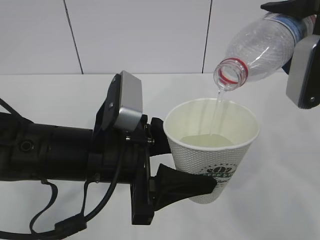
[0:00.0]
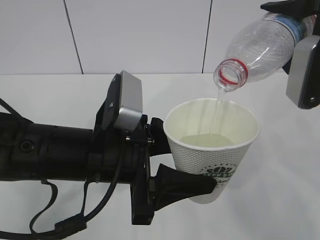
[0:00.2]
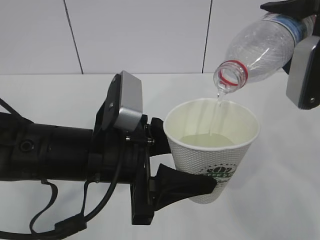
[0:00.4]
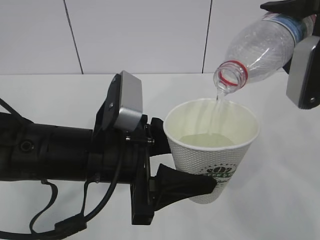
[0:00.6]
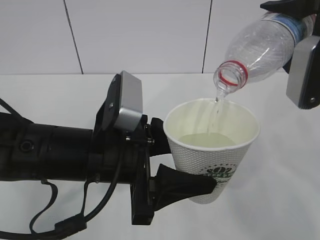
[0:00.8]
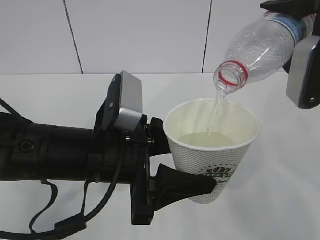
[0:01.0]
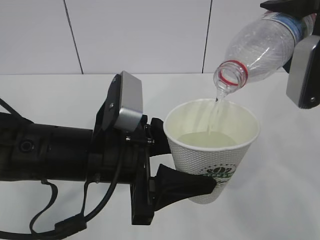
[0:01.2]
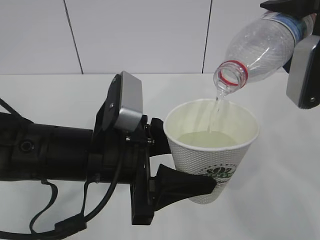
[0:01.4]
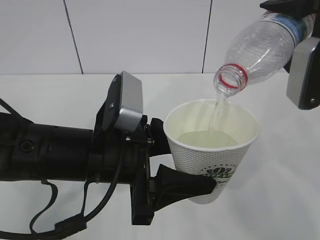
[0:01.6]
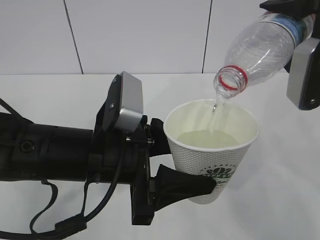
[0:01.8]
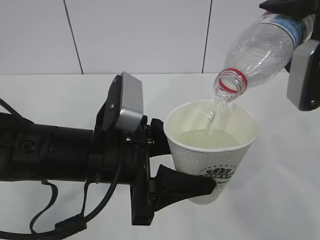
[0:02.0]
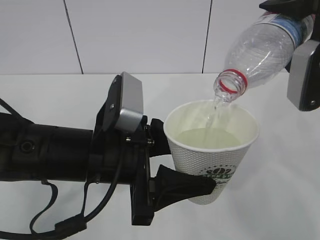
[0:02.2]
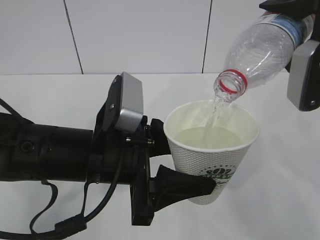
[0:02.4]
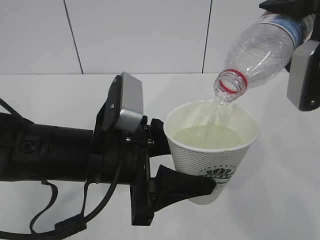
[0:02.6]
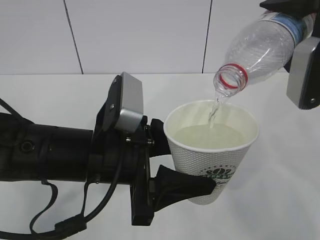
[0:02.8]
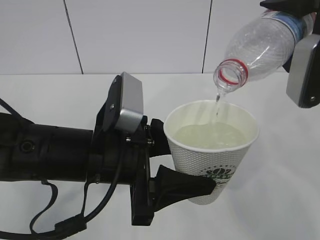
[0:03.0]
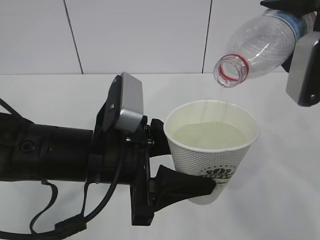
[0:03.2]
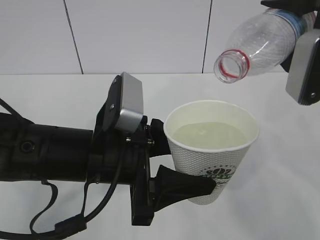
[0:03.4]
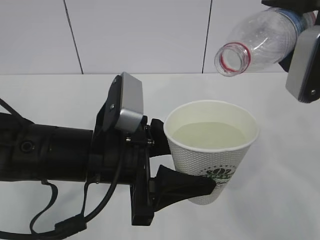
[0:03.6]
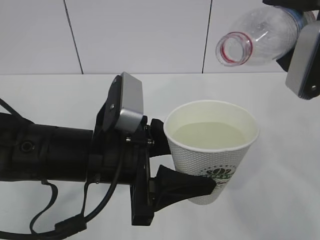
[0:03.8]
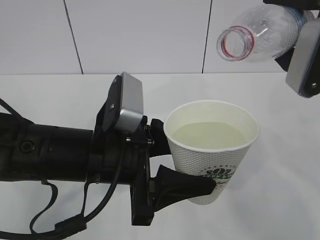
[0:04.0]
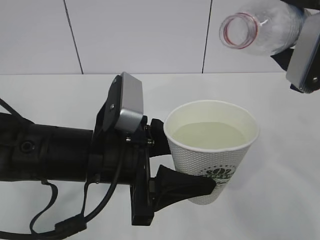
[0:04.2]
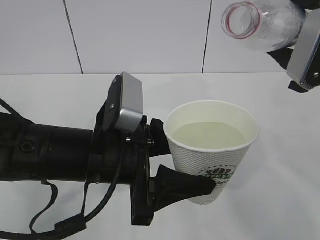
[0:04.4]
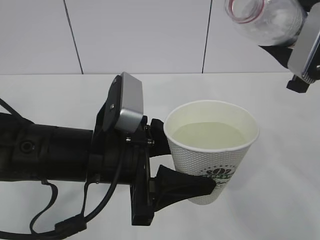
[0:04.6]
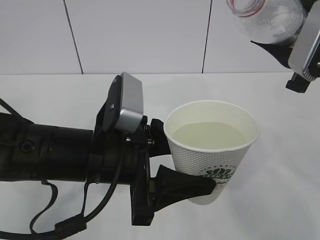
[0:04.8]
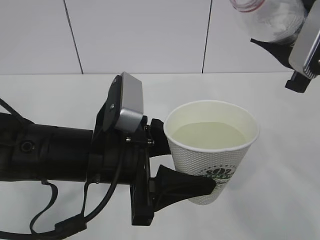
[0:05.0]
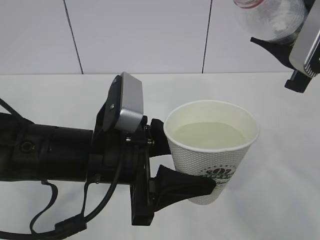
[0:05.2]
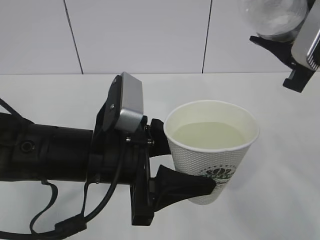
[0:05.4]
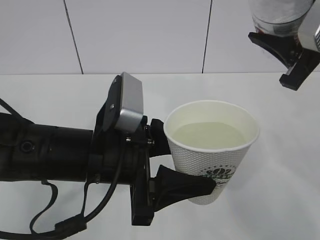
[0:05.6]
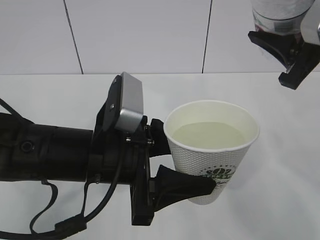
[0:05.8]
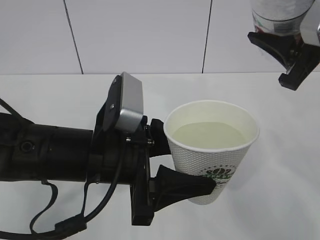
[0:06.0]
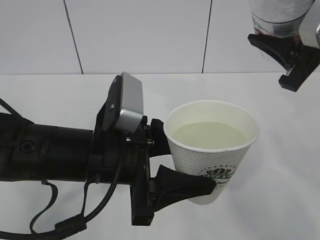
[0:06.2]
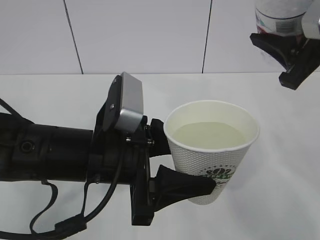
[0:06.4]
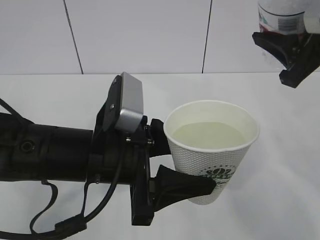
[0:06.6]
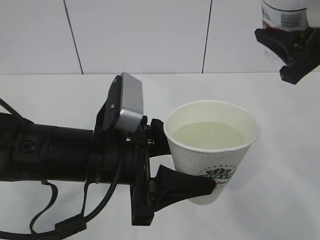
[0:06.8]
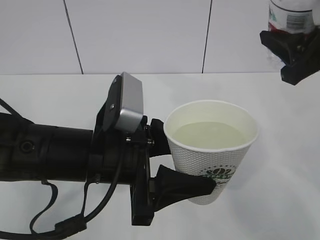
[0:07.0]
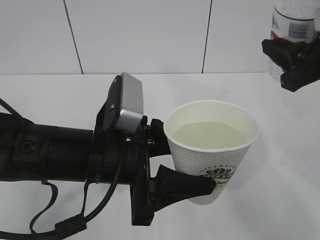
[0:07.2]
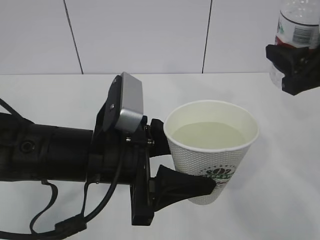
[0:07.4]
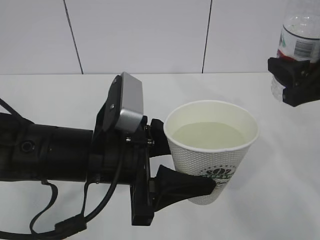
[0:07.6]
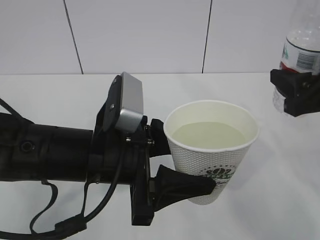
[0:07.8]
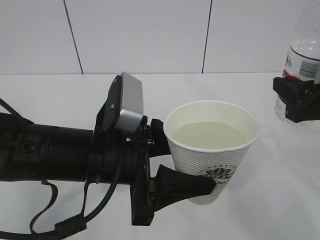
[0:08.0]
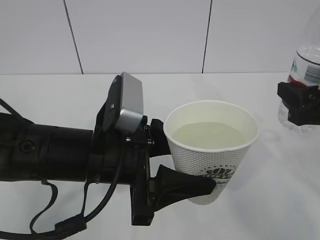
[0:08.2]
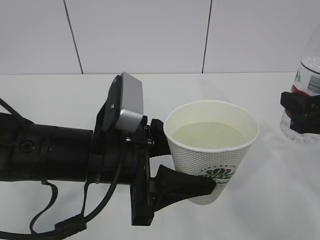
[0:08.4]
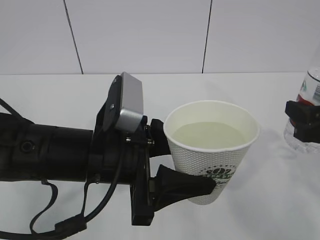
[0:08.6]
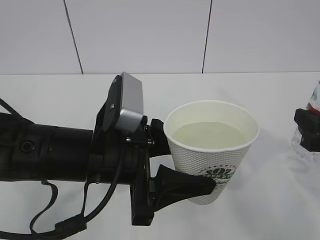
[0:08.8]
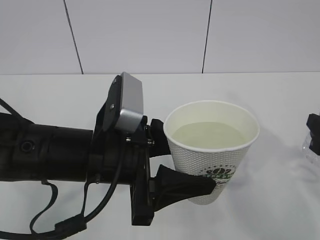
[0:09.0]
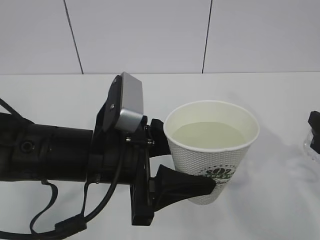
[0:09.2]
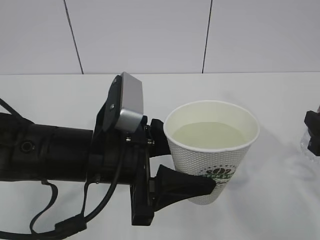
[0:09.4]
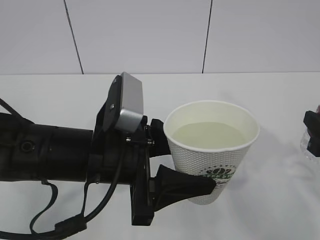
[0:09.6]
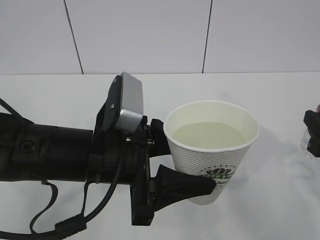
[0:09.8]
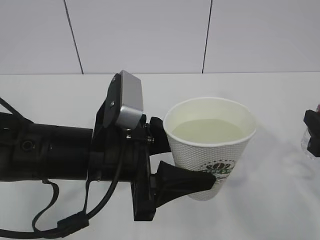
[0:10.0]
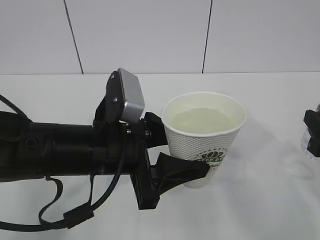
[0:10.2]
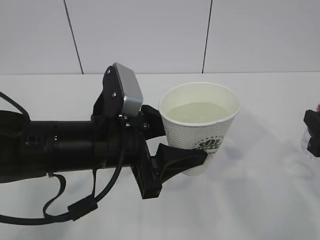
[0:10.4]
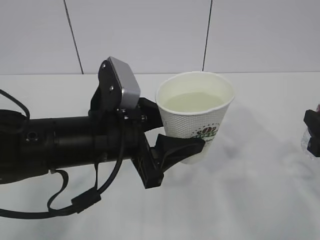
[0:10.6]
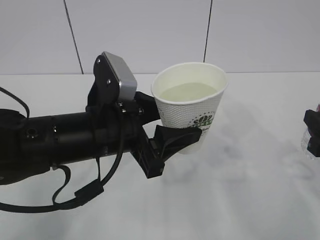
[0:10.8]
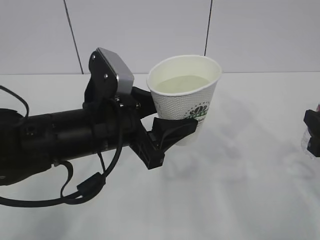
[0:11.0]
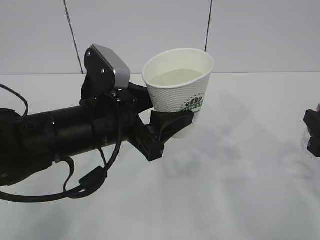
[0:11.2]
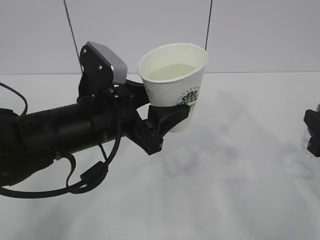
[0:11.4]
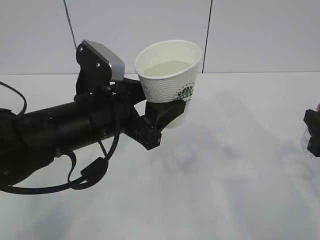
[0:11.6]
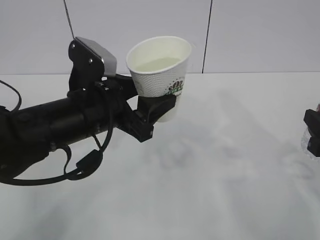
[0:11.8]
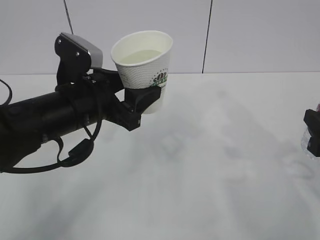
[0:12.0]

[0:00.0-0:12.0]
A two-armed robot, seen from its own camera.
0:00.0 to 0:01.6: Both grippers stay about where they are.
0:01.6 to 0:03.0: Neither gripper changes place.
0:06.0 to 0:07.6: The right gripper moves about 5 cm.
0:07.6 to 0:09.0: The right gripper heads downward and backward, covering some 10 cm.
0:09.0 to 0:10.4: There are only small adjustments of the grippers.
0:10.4 to 0:12.0: The left gripper is displaced forward by approximately 5 cm.

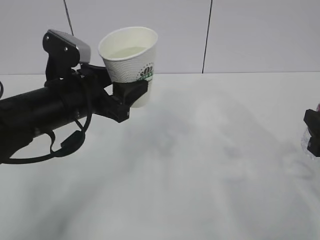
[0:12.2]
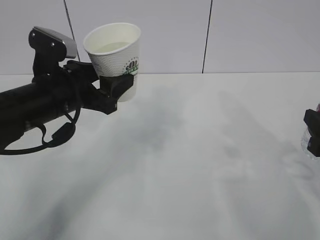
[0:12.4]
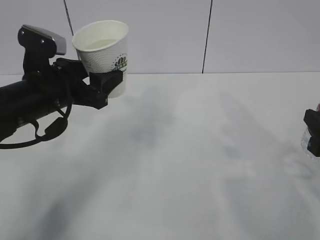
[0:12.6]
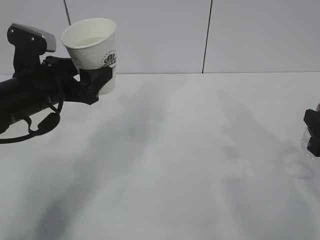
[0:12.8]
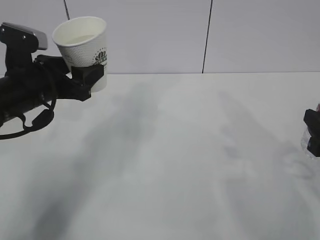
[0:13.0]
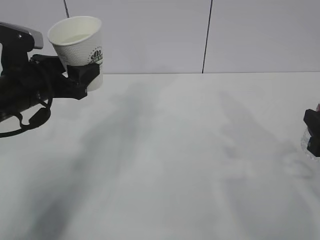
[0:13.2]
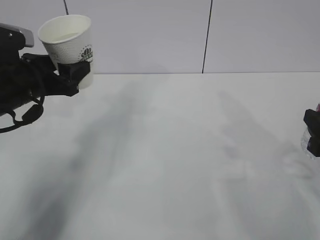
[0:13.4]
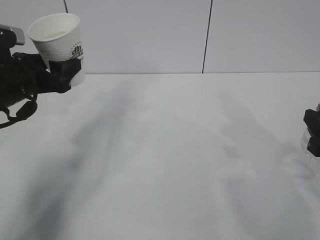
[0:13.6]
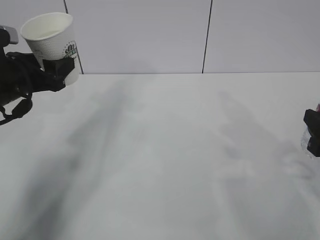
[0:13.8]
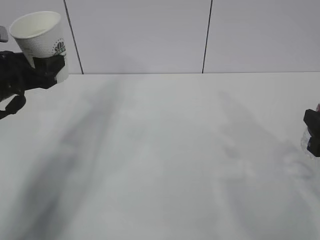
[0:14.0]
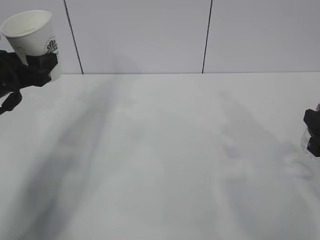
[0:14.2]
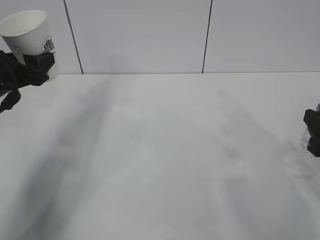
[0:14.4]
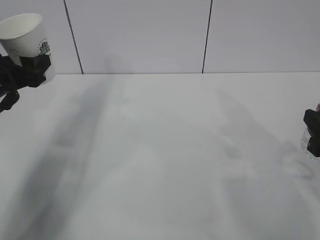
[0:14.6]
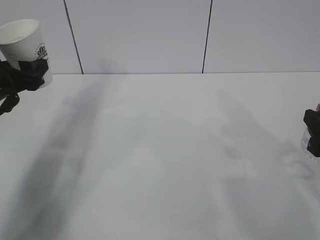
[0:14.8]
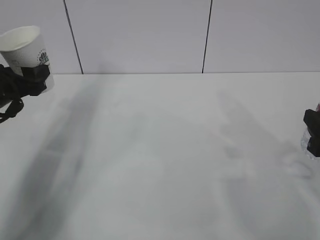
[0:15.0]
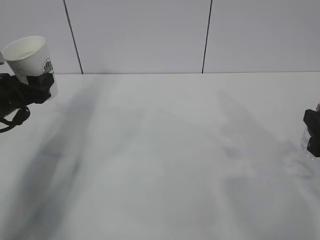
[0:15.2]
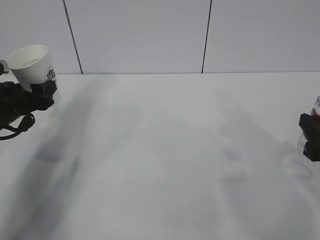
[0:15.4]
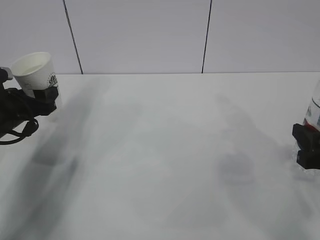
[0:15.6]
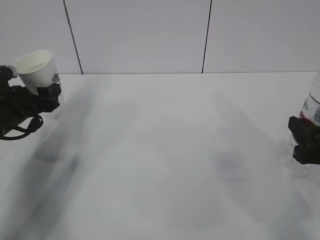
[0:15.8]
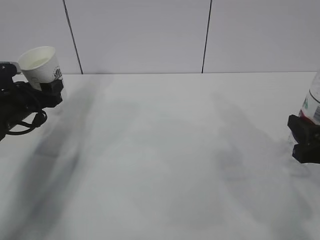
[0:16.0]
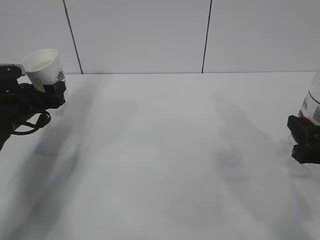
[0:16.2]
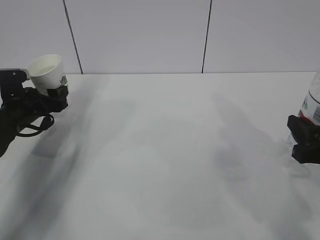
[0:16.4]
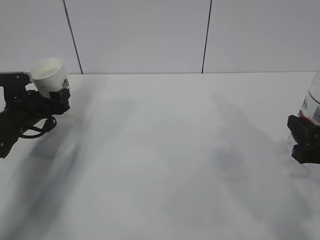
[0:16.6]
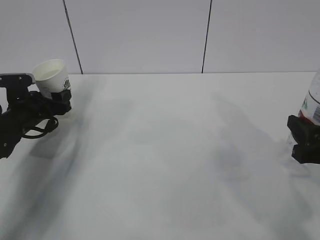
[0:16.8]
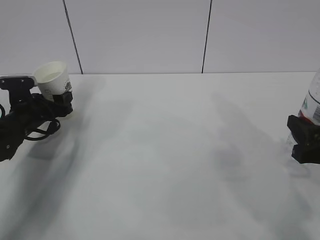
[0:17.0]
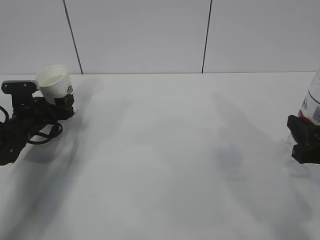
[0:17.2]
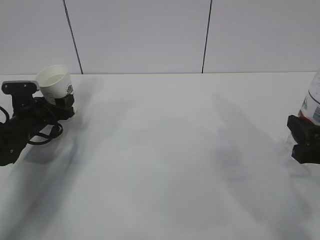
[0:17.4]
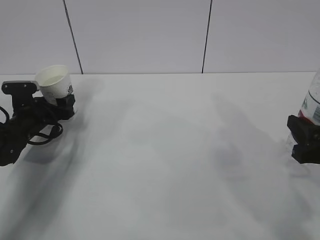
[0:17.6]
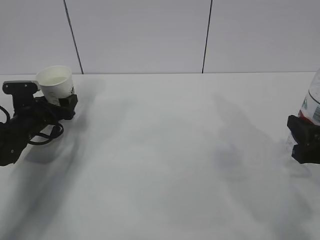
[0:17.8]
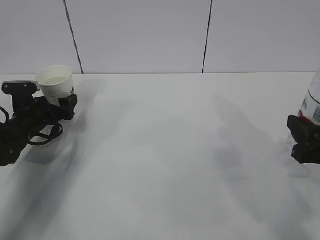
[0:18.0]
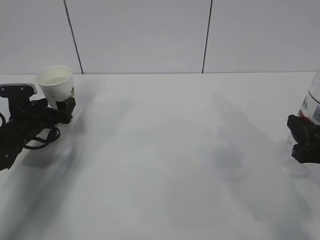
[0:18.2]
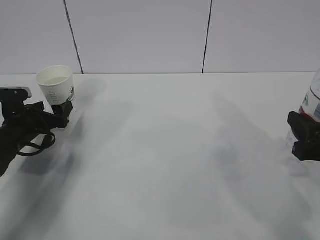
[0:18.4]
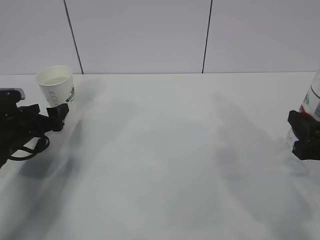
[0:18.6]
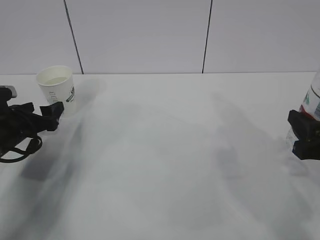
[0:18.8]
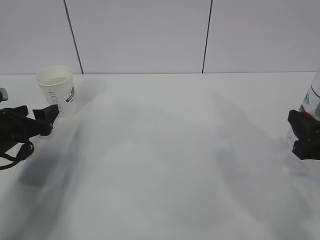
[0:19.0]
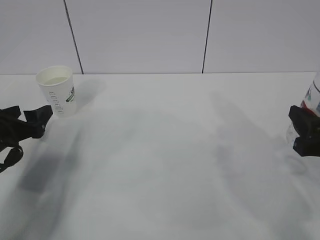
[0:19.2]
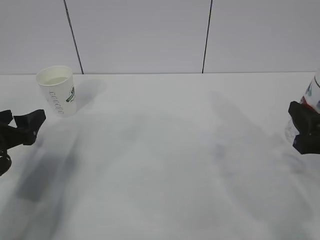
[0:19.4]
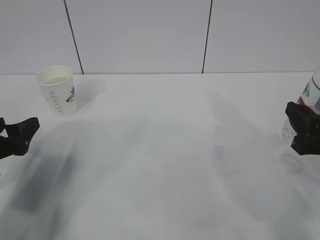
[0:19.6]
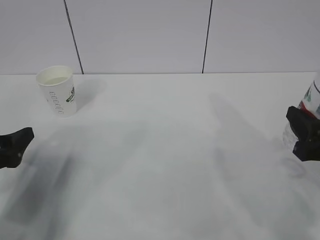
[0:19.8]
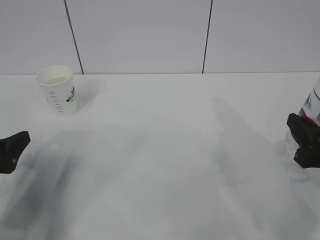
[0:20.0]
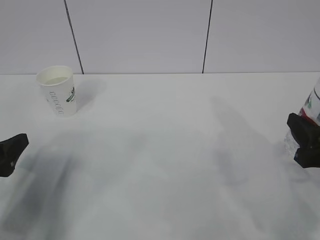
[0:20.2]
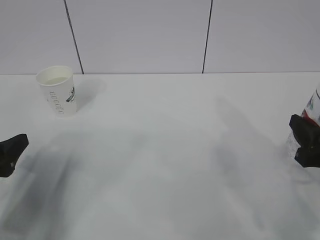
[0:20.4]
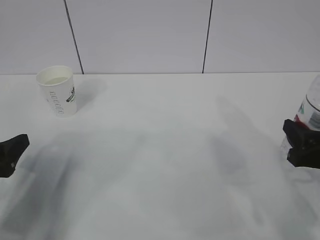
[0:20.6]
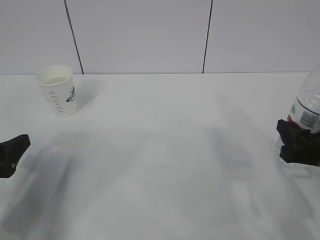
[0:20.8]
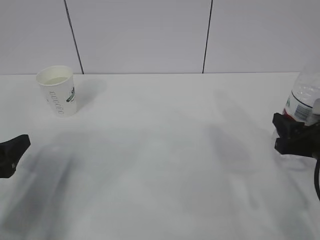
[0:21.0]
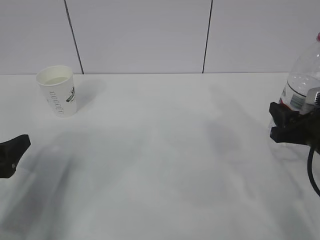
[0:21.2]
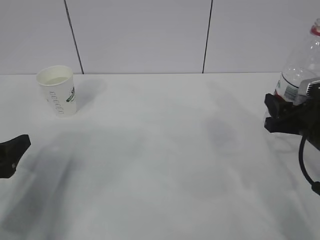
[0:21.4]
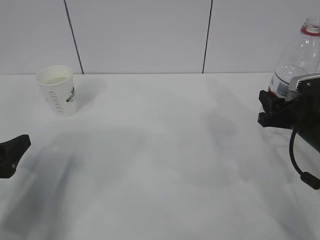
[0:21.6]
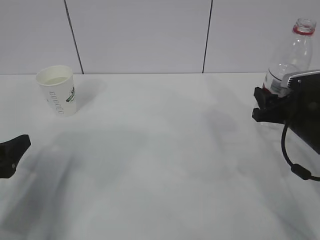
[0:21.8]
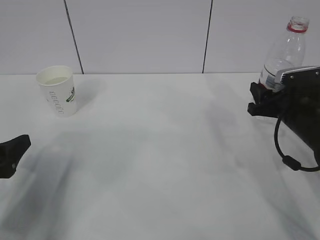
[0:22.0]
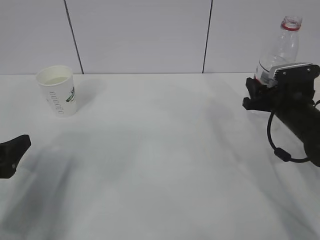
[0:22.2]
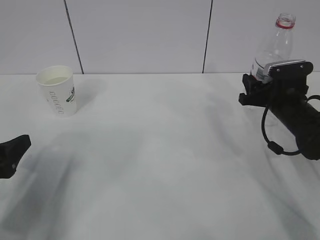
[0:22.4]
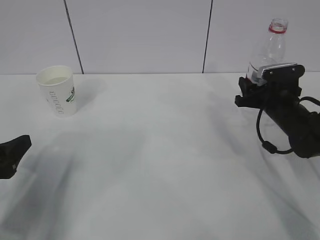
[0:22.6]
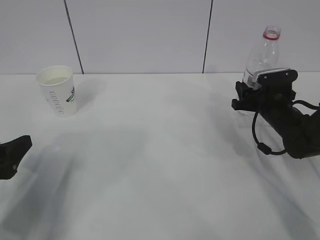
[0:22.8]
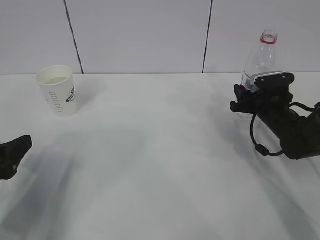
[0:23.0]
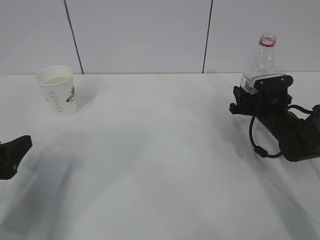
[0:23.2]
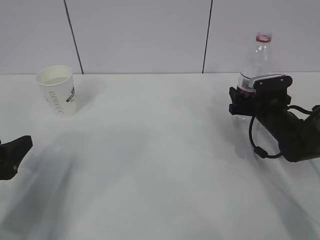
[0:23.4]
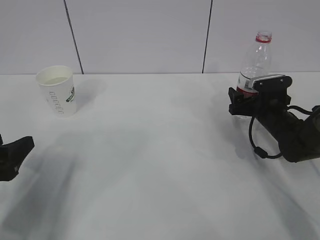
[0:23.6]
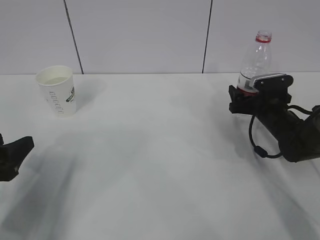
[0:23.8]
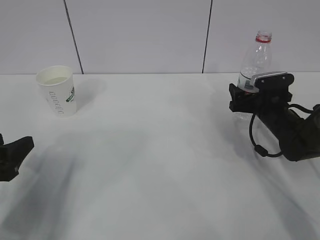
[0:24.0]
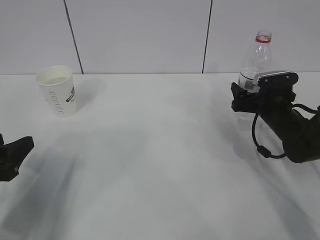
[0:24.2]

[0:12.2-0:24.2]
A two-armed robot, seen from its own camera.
0:12.2 to 0:13.8: The left gripper moves to the left and forward, roughly 15 cm.
0:13.8 to 0:15.2: The left gripper moves approximately 5 cm.
0:15.2 to 0:16.6: The left gripper travels downward and forward by some 10 cm.
0:16.6 to 0:18.2: The left gripper opens up.
0:18.2 to 0:19.8: The left gripper heads backward and upward, covering some 20 cm.
0:19.8 to 0:21.2: The right gripper goes roughly 5 cm forward.
0:21.2 to 0:22.6: The right gripper shifts roughly 15 cm forward.
0:22.6 to 0:24.2: The right gripper opens up.
